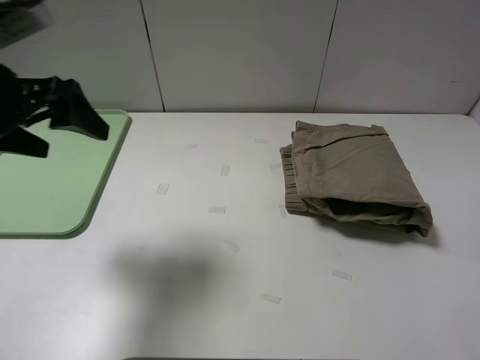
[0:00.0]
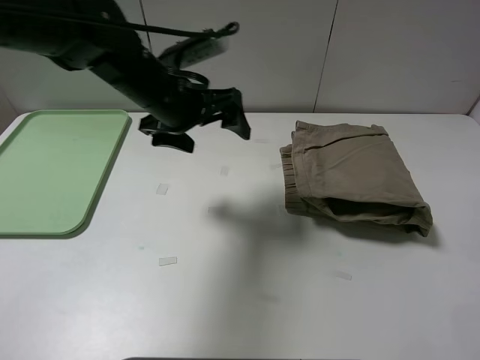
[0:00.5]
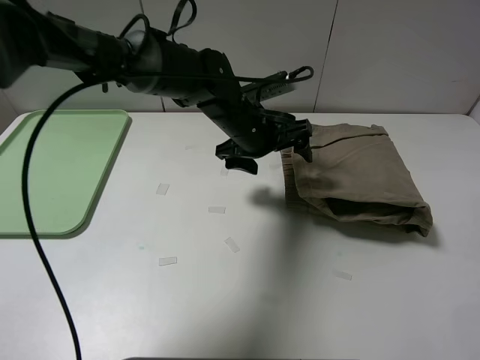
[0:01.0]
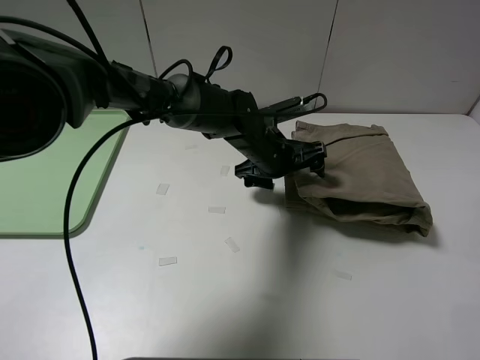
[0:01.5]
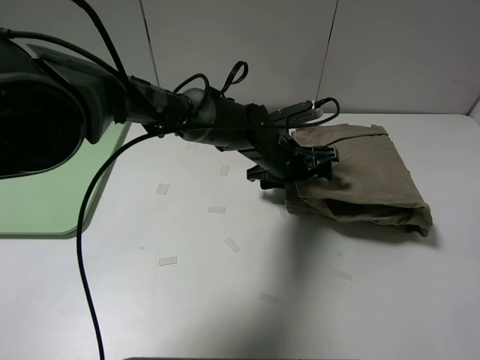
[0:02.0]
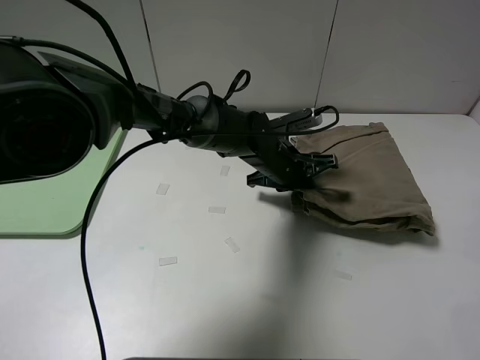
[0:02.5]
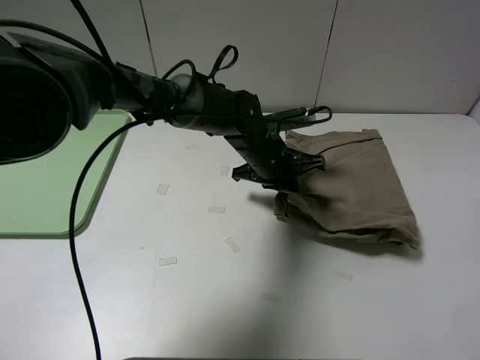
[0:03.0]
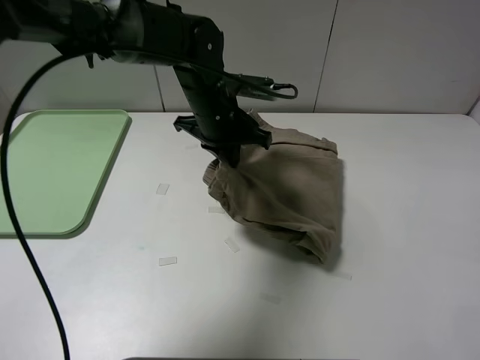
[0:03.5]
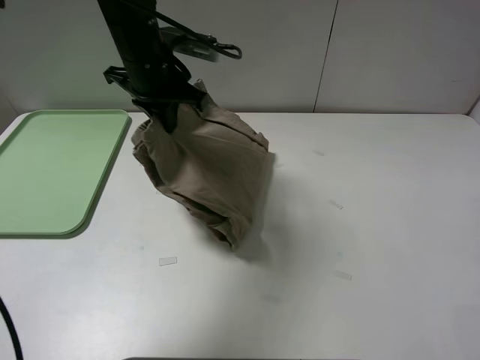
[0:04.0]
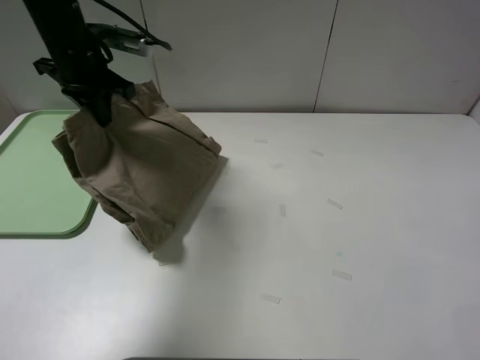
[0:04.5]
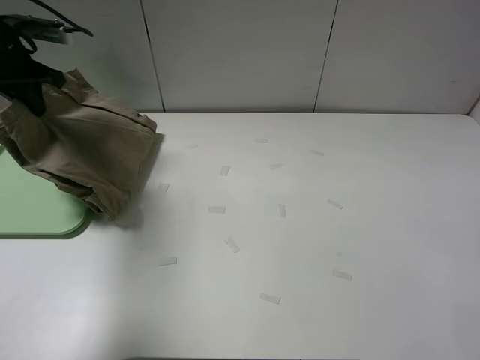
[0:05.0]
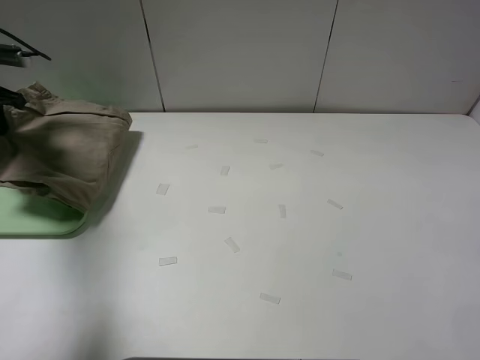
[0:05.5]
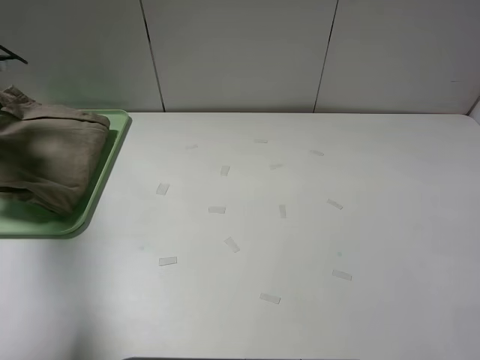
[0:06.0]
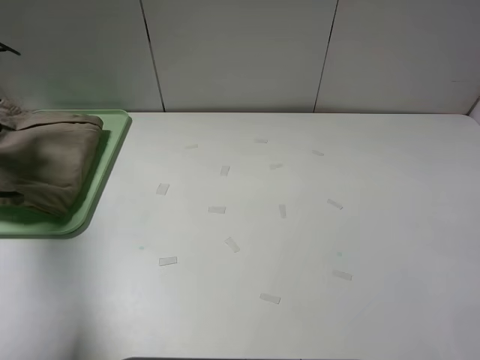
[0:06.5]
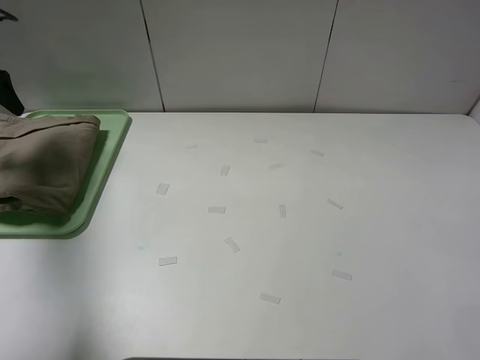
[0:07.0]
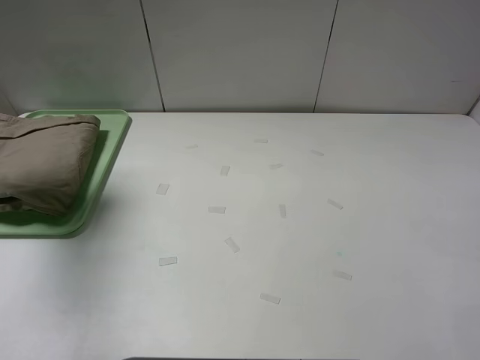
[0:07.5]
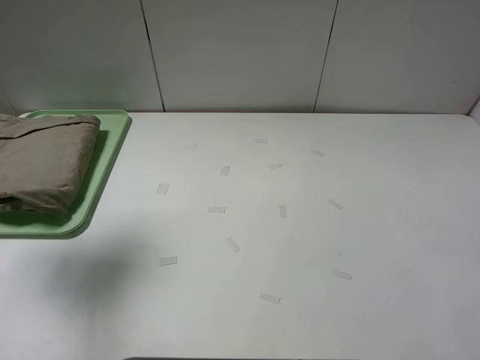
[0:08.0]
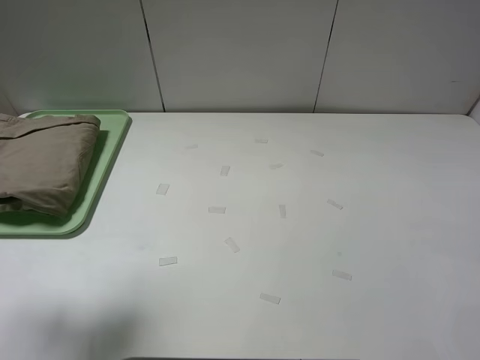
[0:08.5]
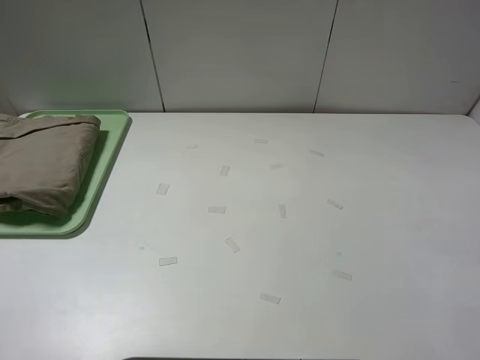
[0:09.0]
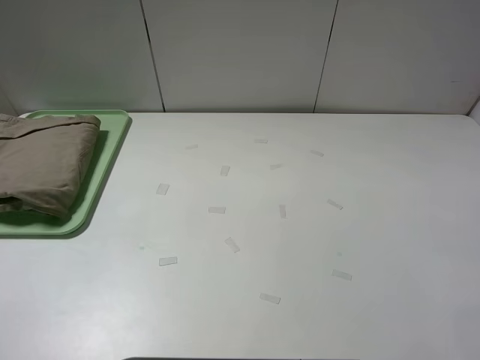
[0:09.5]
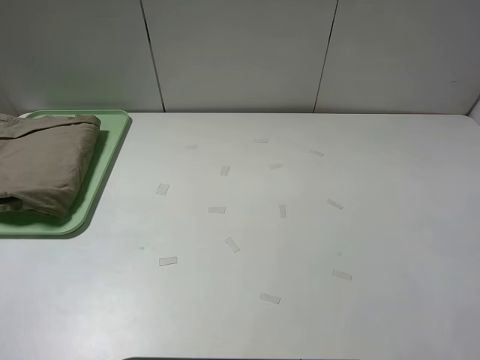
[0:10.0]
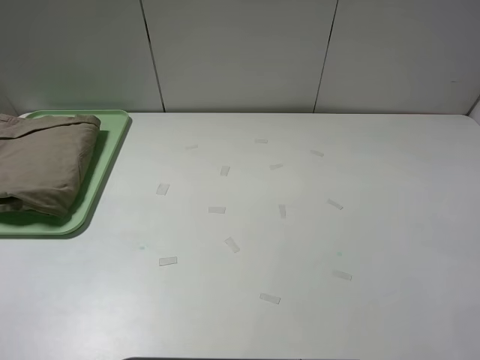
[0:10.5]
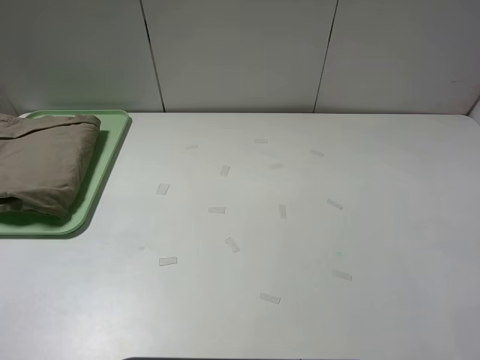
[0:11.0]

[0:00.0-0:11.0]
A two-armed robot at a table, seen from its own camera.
Task of the whole recording: fold the khaki jeans in half with two grippers, then fold them in half again, and use the left claw to place the folded fold khaki jeans on the tray.
Step, 0:00.0 to 0:02.5: Grasp the khaki trousers with the left gripper.
Step, 0:03.0 to 0:06.5: Place the folded khaki trousers on the green tray with the left gripper.
0:00.0 to 0:02.0: The left gripper travels to the right and downward by roughly 35 cm.
0:02.0 to 0:03.5: The left gripper shifts about 15 cm to the left and upward, and closes.
0:03.5 to 0:05.5: The left gripper moves to the left, some 40 cm.
0:05.5 to 0:07.5: The left gripper moves upward and backward, approximately 15 cm, and opens.
0:07.5 to 0:09.0: The left gripper goes roughly 30 cm backward and to the right.
